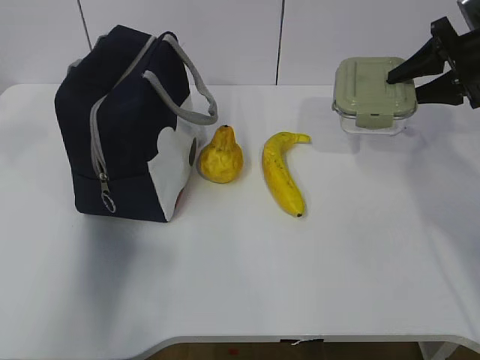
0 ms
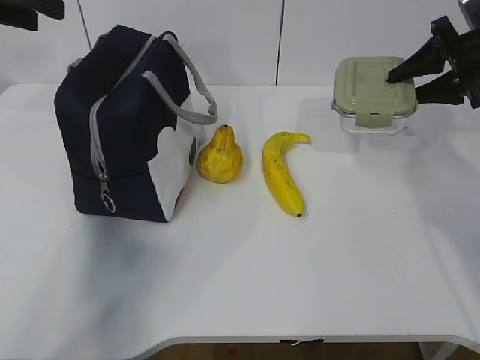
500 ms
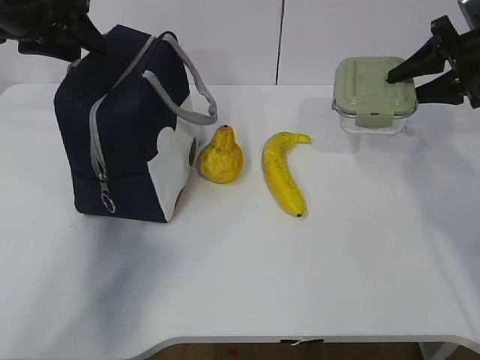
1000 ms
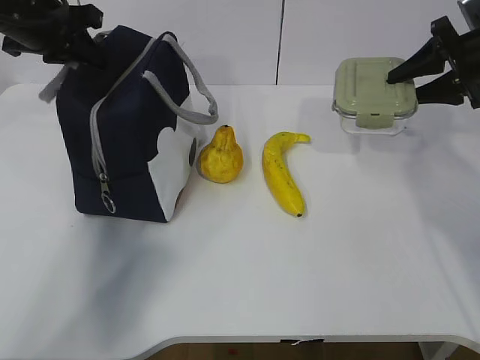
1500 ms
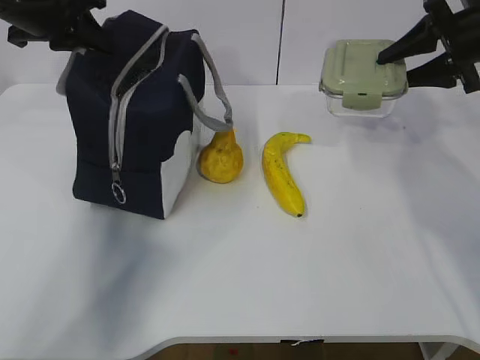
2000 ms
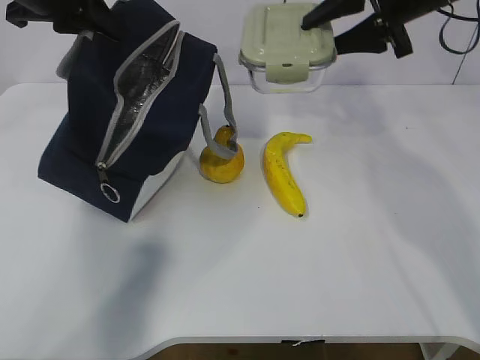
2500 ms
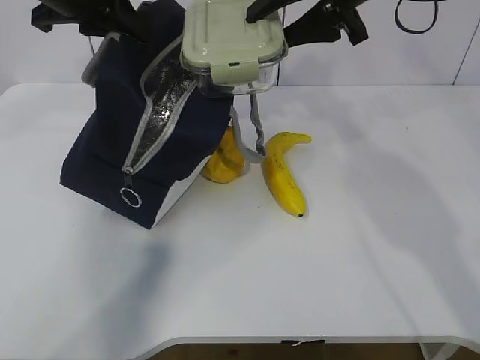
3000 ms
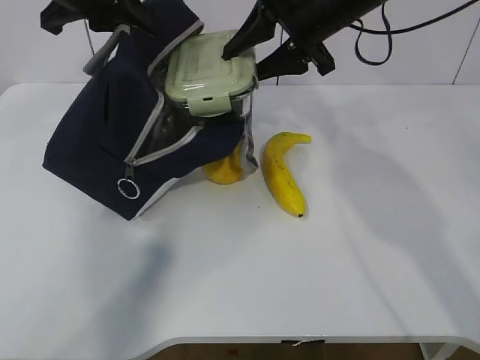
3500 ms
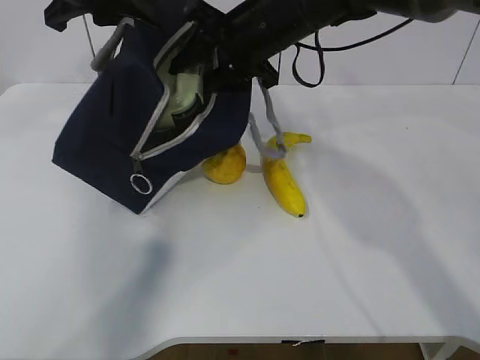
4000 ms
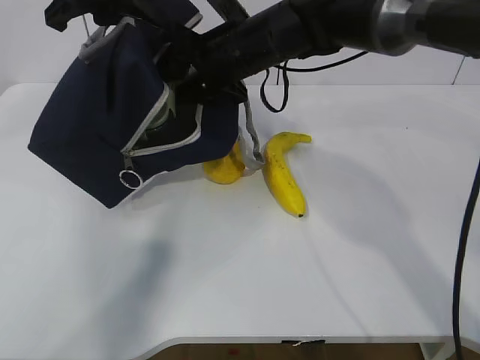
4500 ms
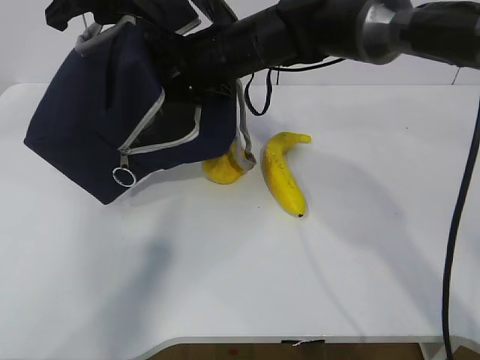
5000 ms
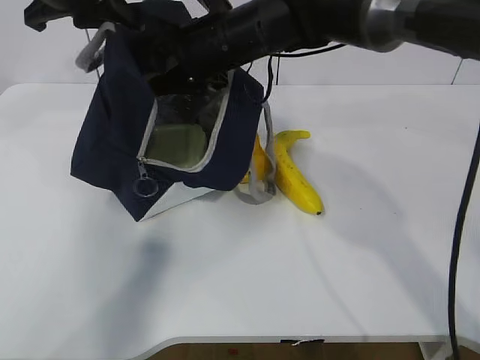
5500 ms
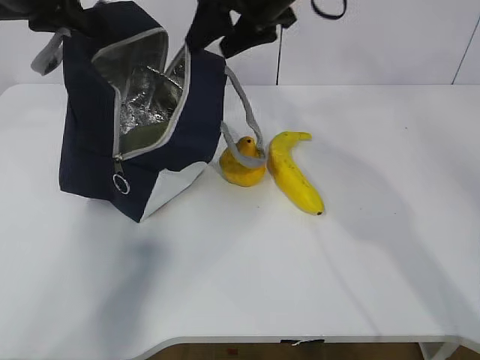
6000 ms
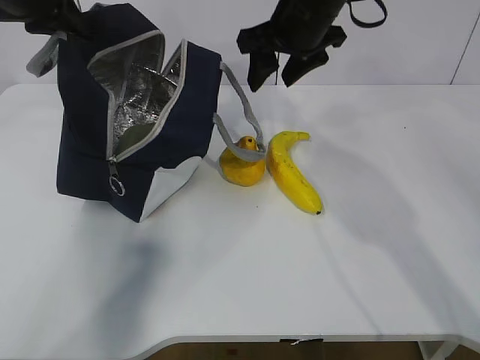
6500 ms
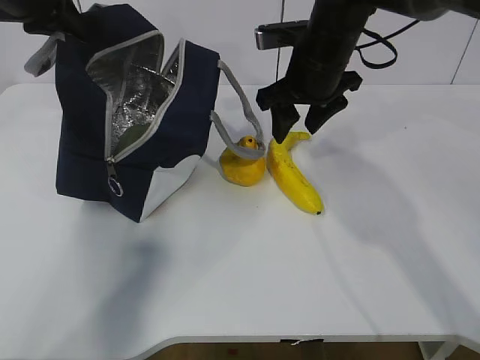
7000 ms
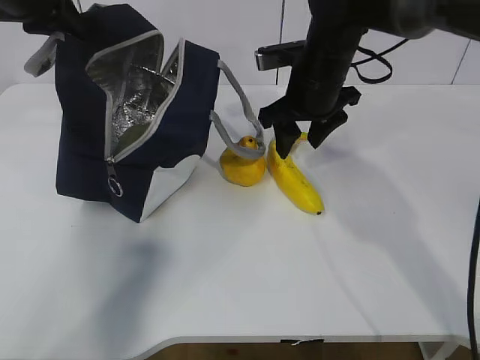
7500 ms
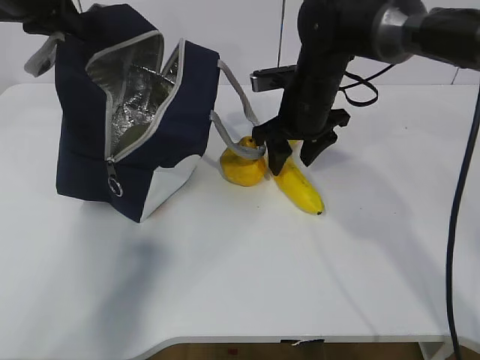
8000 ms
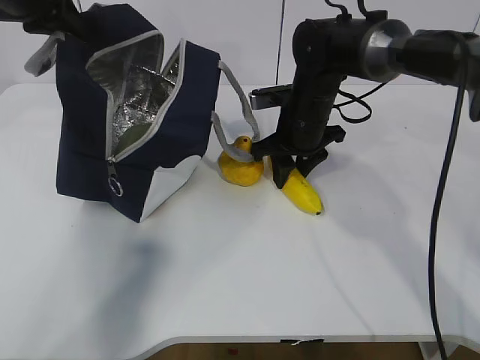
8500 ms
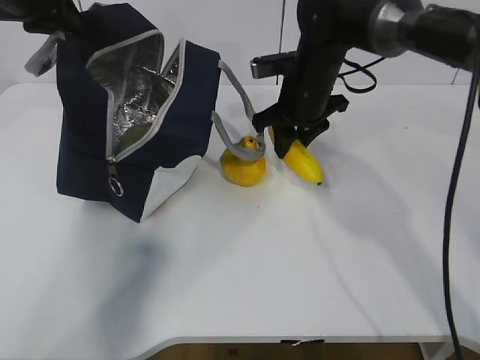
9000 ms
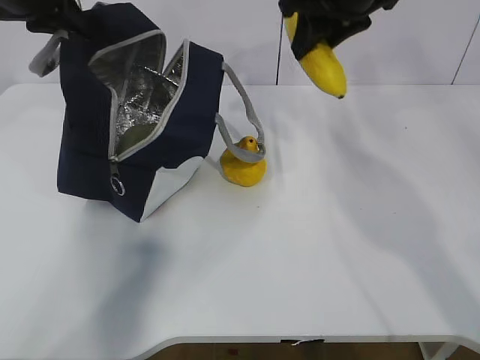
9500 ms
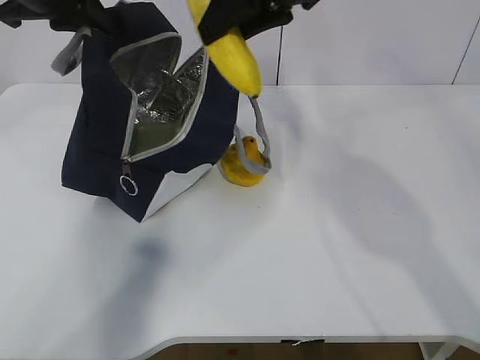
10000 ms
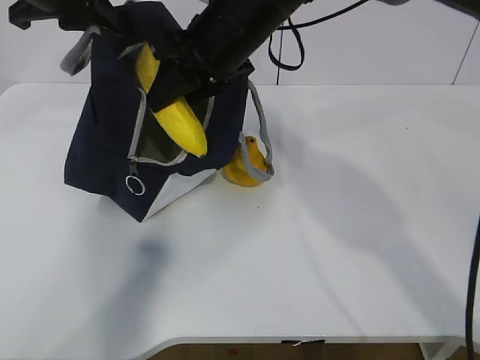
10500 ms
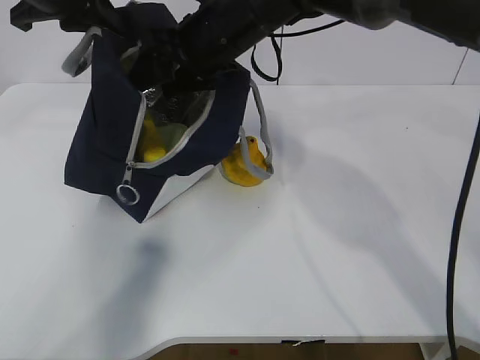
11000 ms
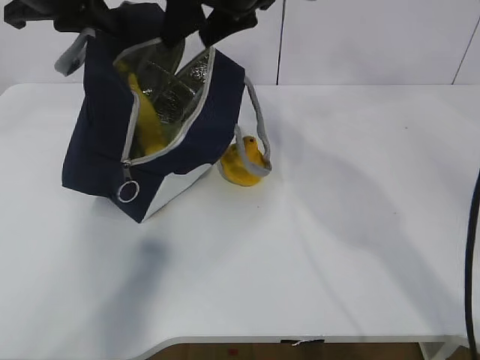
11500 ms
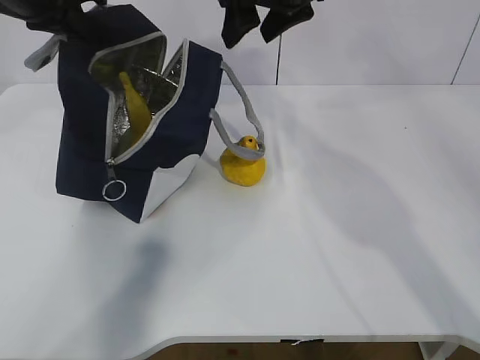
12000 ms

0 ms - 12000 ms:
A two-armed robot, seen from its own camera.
Step, 500 ms - 2000 ms: Place it into the bag with your right hand.
Step, 2500 ms - 5000 ms: Grab the banana with your right hand.
Step, 5500 ms - 7000 ms: Place it into the bag with your right hand.
Step, 7500 ms - 11000 ms: Grab the pear with your right hand.
0 ms - 2000 ms: The left gripper is displaced forward by approximately 15 cm, and closes up.
2000 ms - 4000 ms: The left gripper heads to the right, covering about 5 cm; the right gripper travels to the left by approximately 25 cm.
4000 ms - 6000 ms: The right gripper ends up roughly 5 cm from where it was; the left gripper travels to the left by roughly 5 cm.
6000 ms - 8000 ms: The right gripper travels downward by about 15 cm.
8000 ms - 10000 ms: The right gripper travels upward by some 20 cm, and closes its fingers.
10000 ms - 12000 ms: The right gripper moves approximately 10 cm downward and comes back, and opens up.

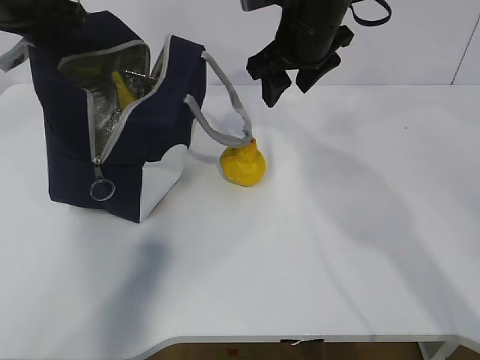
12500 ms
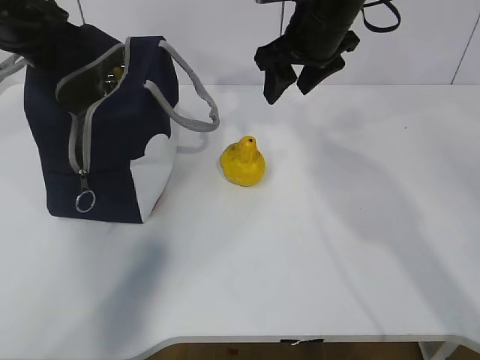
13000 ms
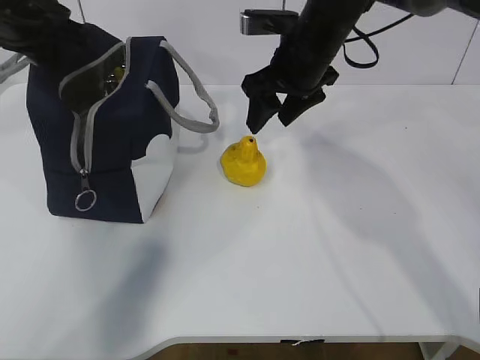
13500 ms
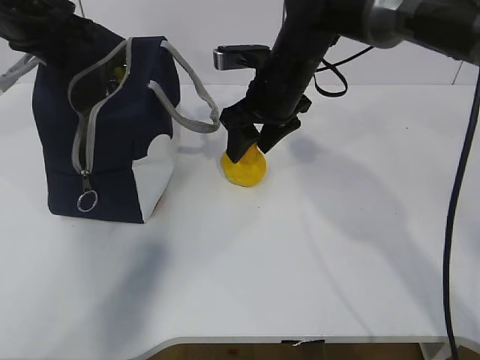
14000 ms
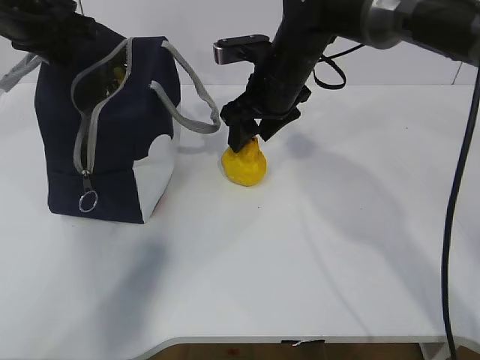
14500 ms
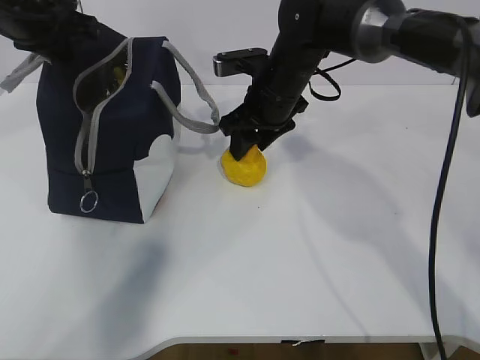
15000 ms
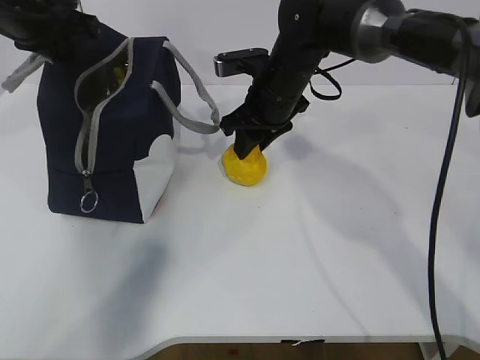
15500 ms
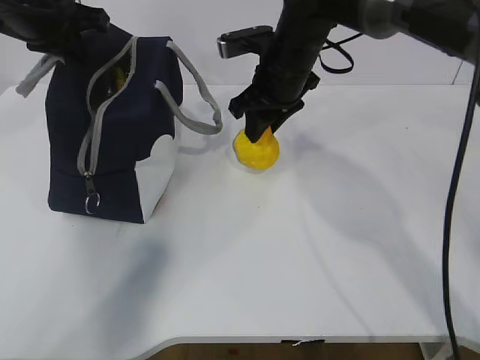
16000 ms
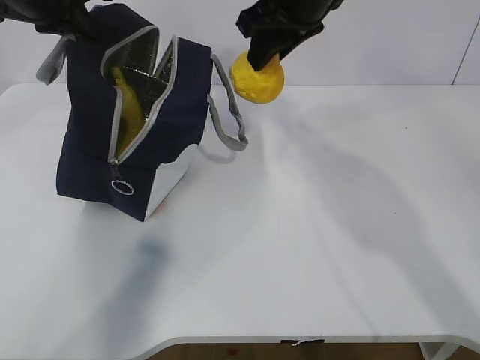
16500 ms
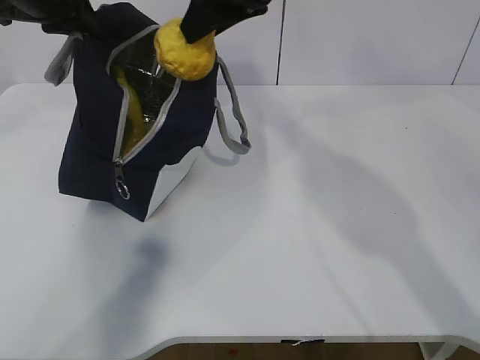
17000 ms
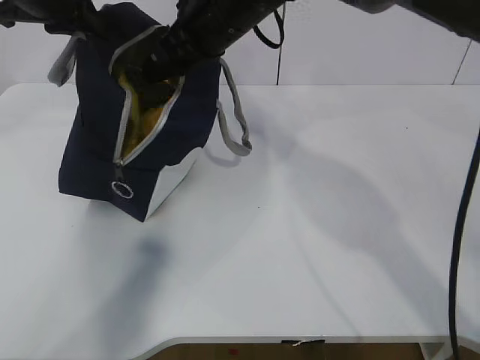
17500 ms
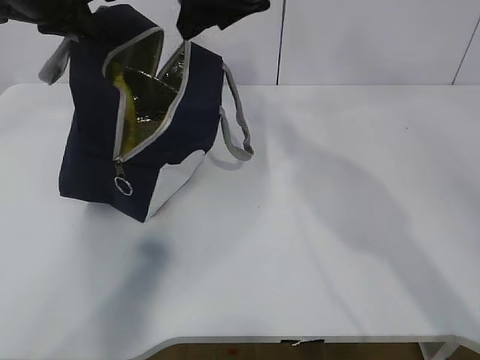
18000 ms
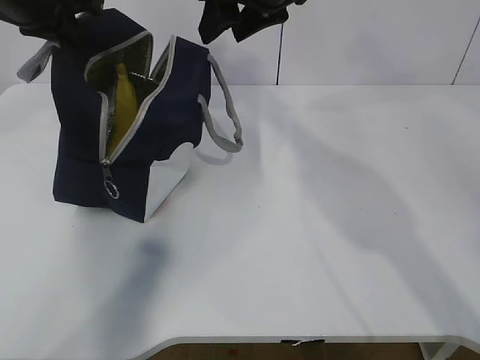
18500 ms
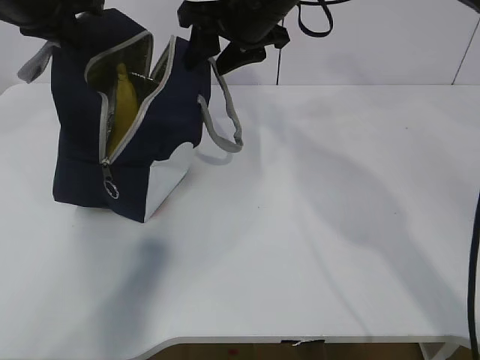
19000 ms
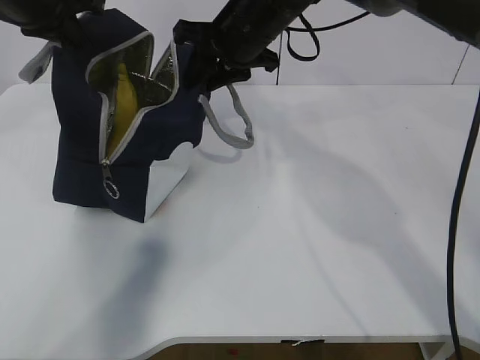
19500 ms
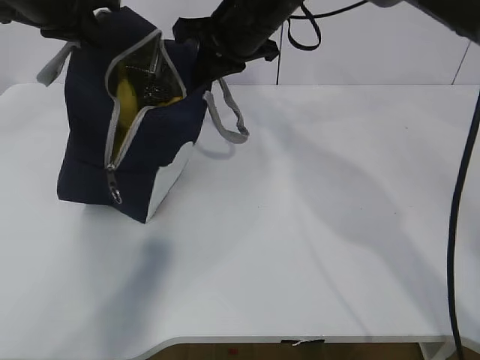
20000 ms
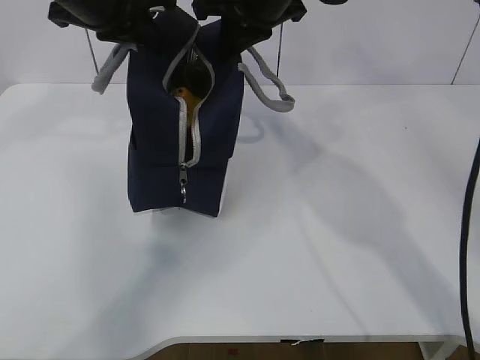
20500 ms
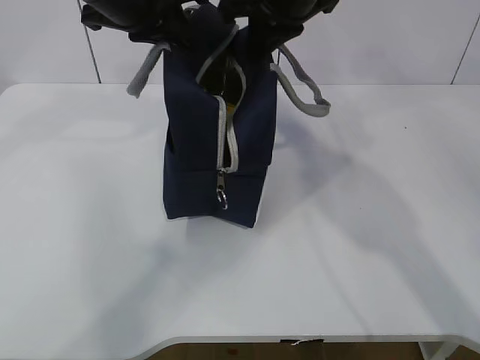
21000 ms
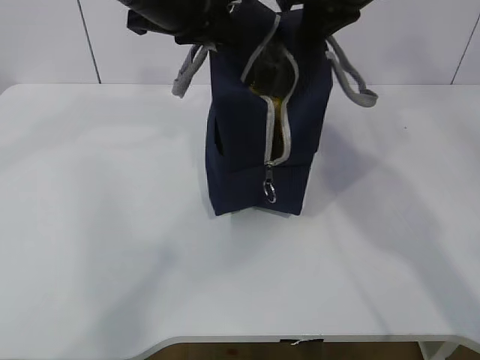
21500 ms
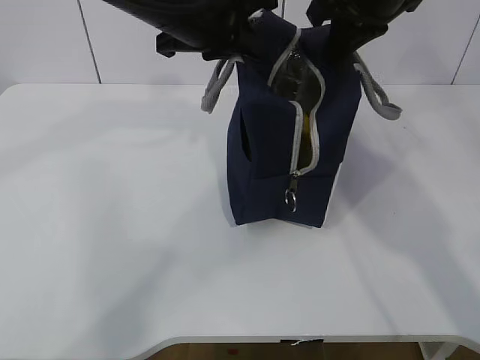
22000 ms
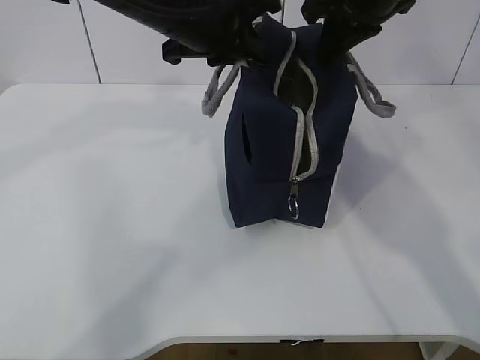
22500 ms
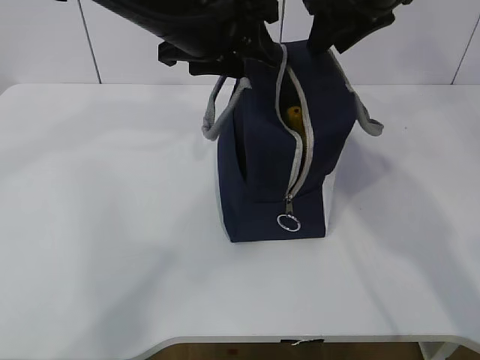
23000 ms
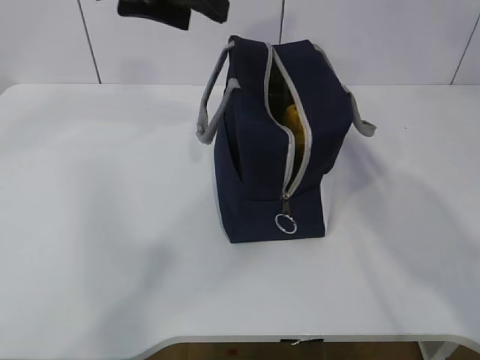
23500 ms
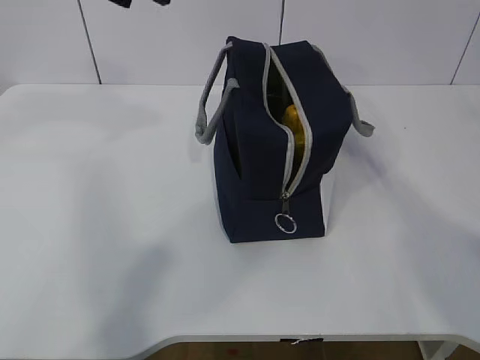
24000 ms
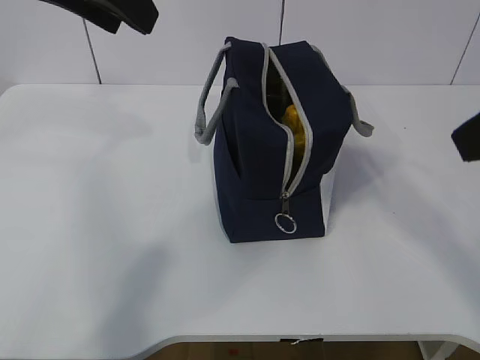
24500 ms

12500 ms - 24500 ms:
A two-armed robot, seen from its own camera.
Step, 13000 ms - 14500 ms: Grab the lunch bag with your right hand.
Step, 15000 ms - 17000 ms: Move the lunch bag to the right.
12500 ms - 14500 ms: The right gripper shifts approximately 5 cm downward.
14500 ms - 16500 ms: The right gripper goes approximately 15 cm upward, and closes up.
16500 ms - 18500 ms: The right gripper reaches about 10 cm to the left, then returns.
18500 ms - 20500 ms: The right gripper closes up, while the left gripper heads to the right, covering approximately 10 cm.
20500 ms - 22500 ms: The two grippers go roughly 10 cm to the right.
22500 ms - 24500 ms: The right gripper shifts roughly 25 cm backward, and opens its fingers; the left gripper moves upward, backward and to the left, roughly 15 cm, and opens its fingers.

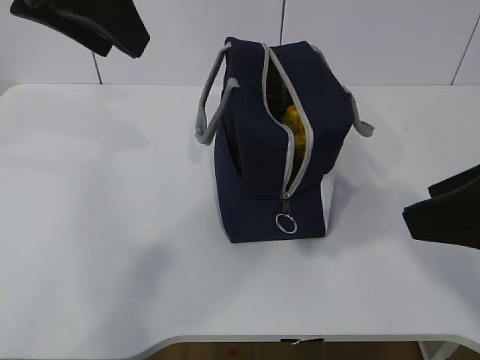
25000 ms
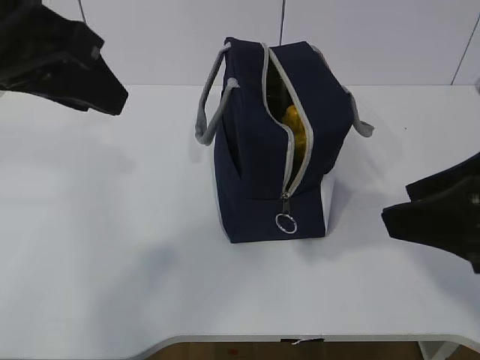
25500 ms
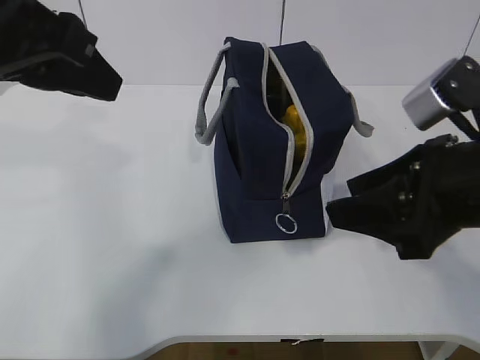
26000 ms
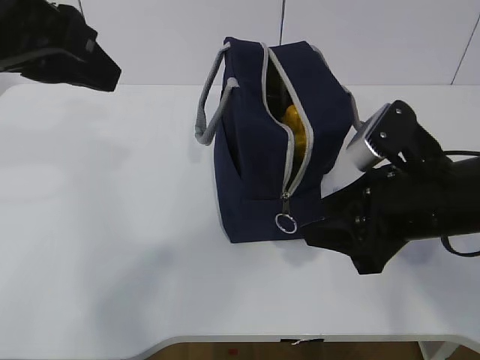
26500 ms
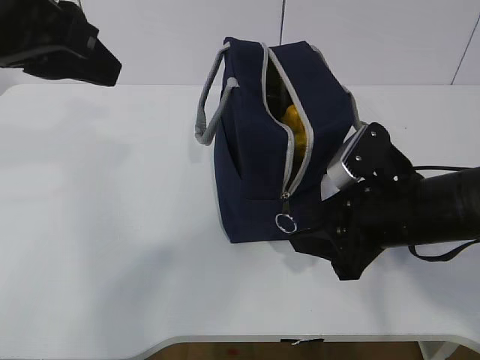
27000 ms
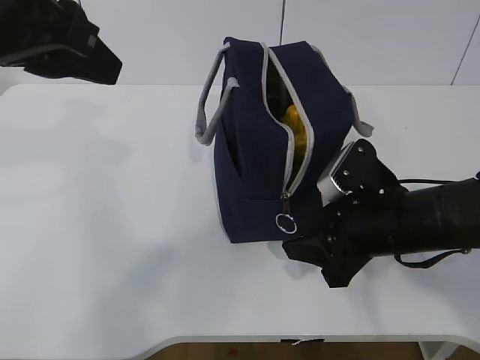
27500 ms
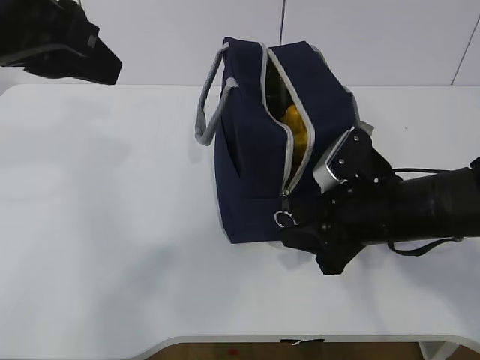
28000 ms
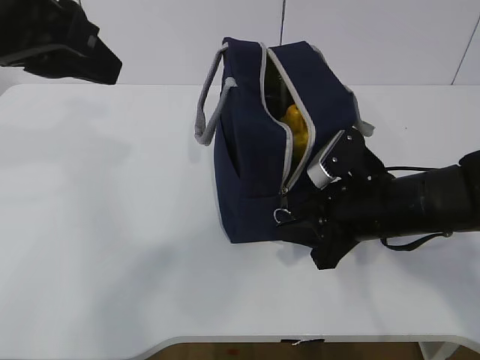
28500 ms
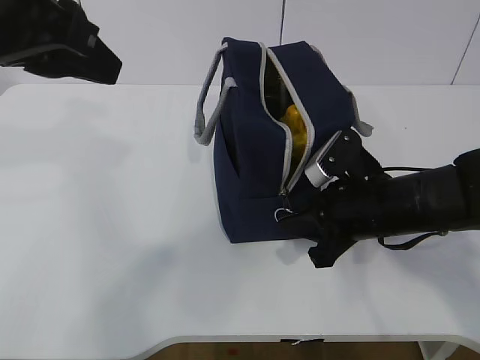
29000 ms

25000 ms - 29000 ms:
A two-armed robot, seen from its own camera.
25000 ms - 27000 ms: The left gripper changes place by roughly 5 cm. Meanwhile the right gripper moves downward and forward, about 20 cm.
27000 ms - 29000 ms: The right gripper closes up.
